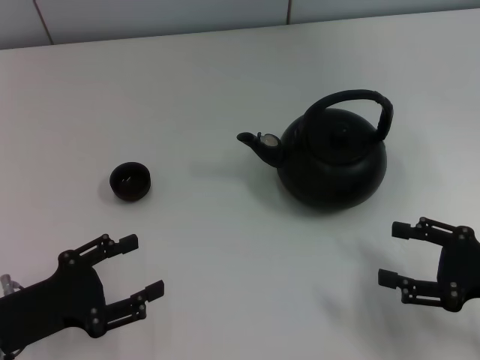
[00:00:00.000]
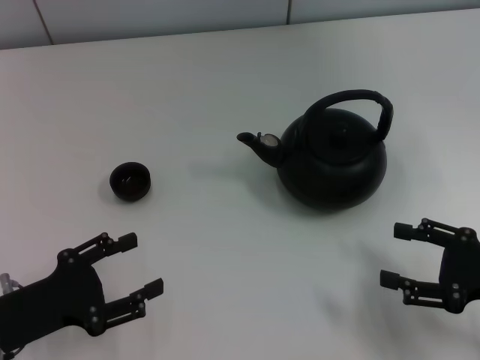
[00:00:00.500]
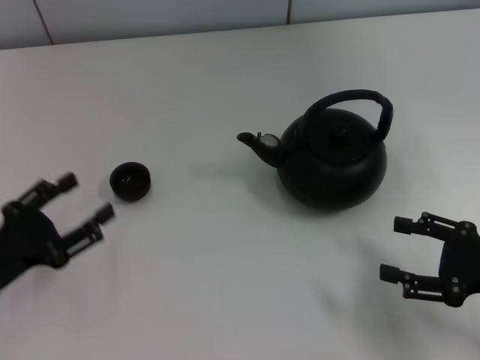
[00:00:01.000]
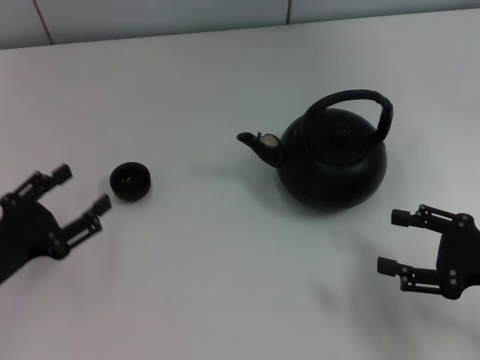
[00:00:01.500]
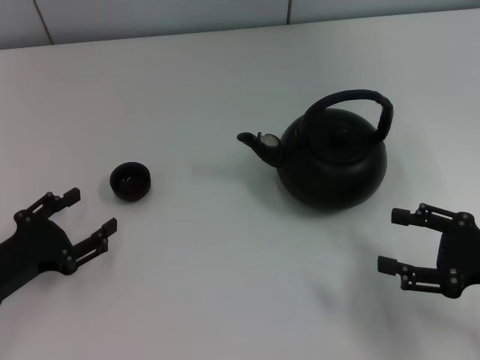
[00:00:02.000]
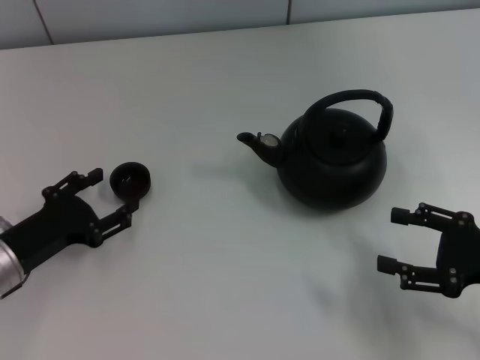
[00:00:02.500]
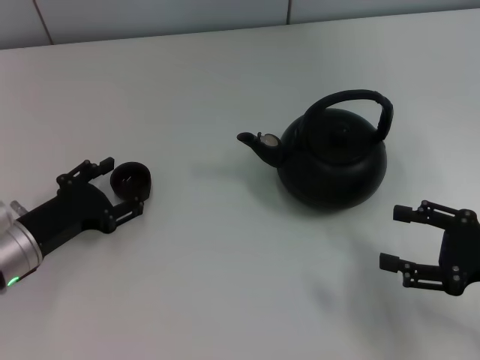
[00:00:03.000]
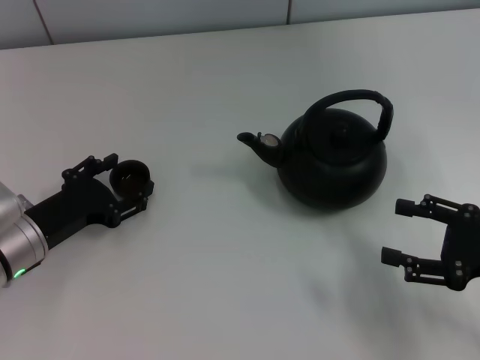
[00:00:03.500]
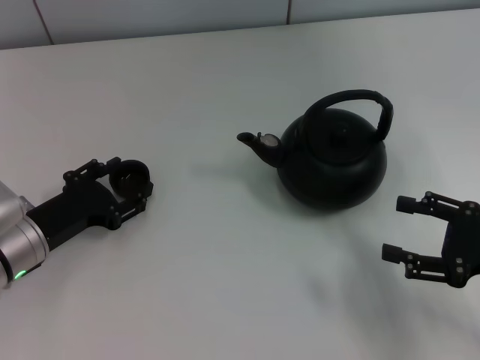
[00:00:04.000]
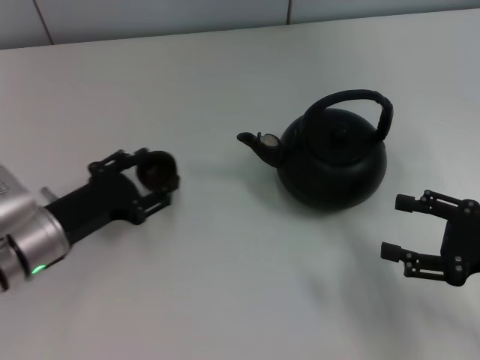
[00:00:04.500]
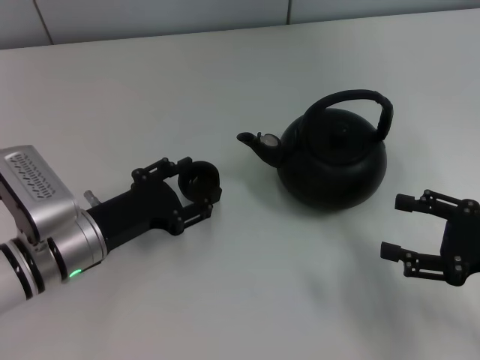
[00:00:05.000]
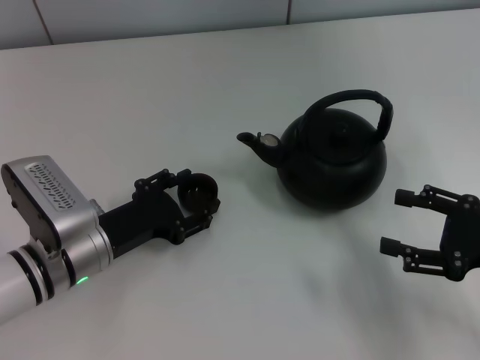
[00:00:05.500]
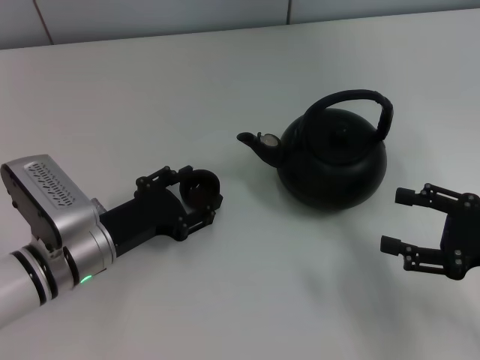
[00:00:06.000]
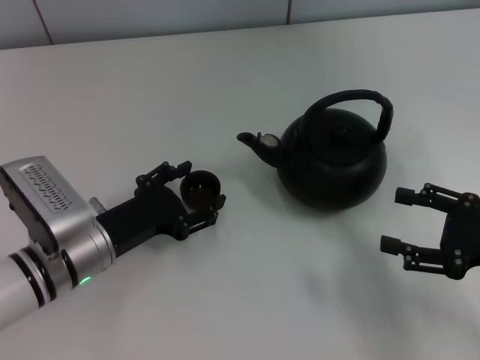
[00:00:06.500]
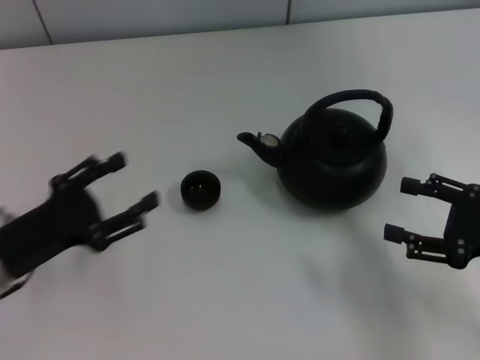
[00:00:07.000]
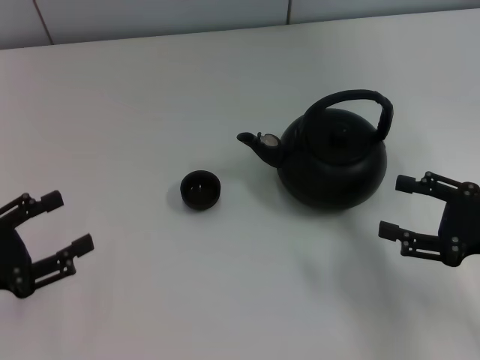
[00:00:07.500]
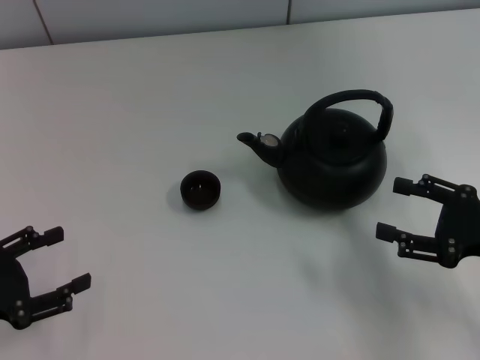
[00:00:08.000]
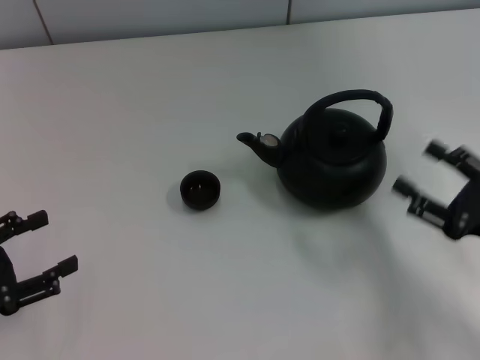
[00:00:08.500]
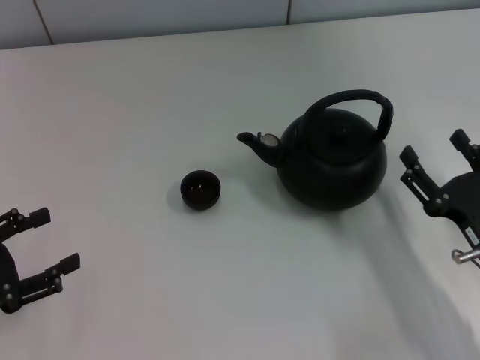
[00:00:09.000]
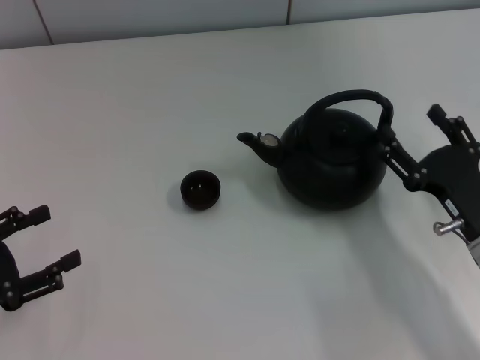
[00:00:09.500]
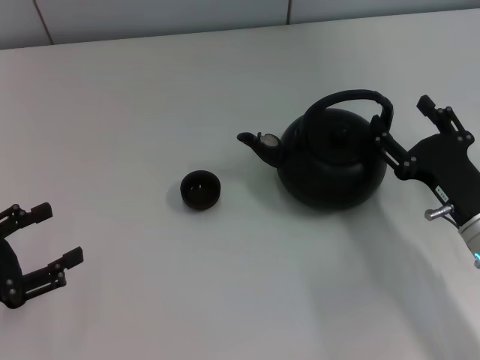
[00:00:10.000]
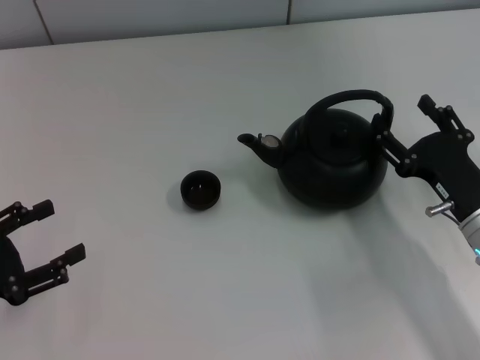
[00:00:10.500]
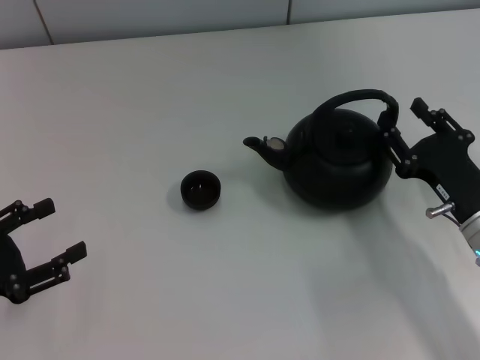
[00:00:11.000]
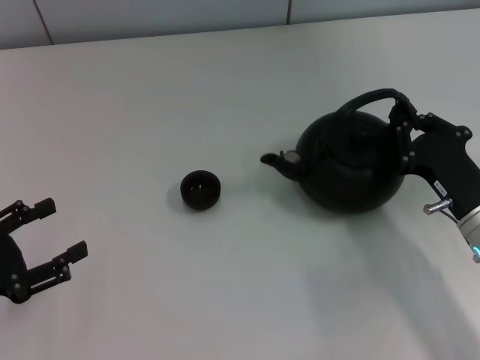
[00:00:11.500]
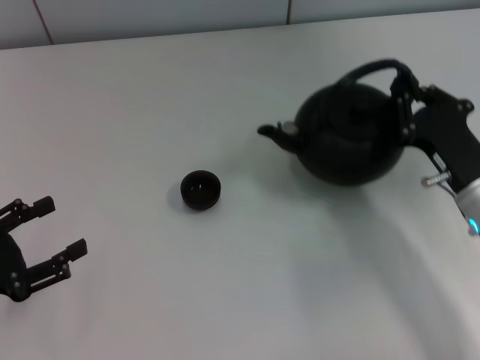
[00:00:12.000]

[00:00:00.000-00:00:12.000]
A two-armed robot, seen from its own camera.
Task of the whole recording: Grasp the handle of the teapot with one hand and pour tea into the teacup.
Step, 00:00:00.000 to 00:00:04.000: Pick up the teacup with the left gripper.
Step, 00:00:04.500 to 00:00:06.500: Place the teacup in the center of view with the left gripper.
00:00:02.000 to 00:00:04.000: The left gripper shifts roughly 5 cm forward.
00:00:04.000 to 00:00:06.000: The left gripper is displaced to the right by approximately 5 cm, and closes its fingers.
00:00:06.000 to 00:00:08.000: The left gripper moves to the left and backward, some 15 cm, and opens up.
00:00:08.000 to 00:00:10.000: The right gripper heads to the left, covering roughly 5 cm.
00:00:10.000 to 00:00:12.000: The right gripper closes.

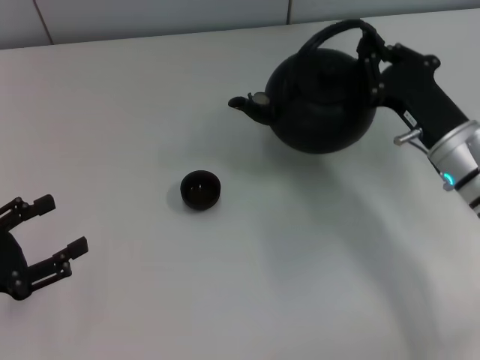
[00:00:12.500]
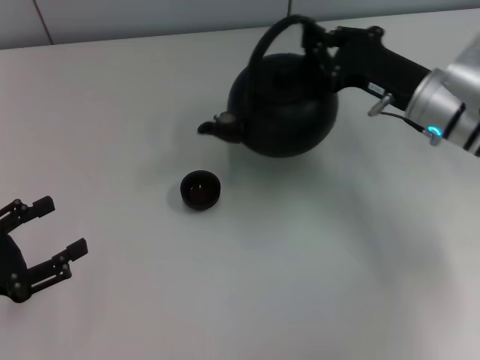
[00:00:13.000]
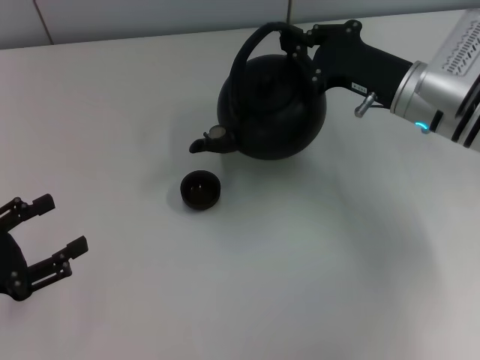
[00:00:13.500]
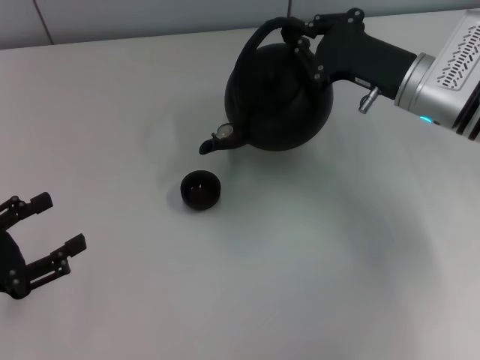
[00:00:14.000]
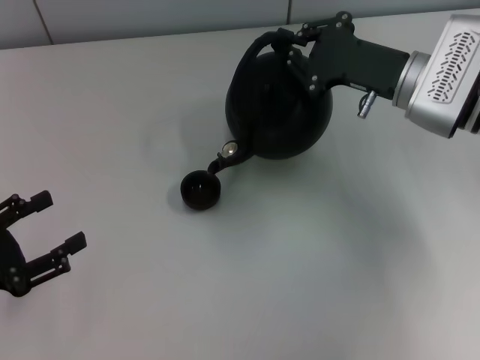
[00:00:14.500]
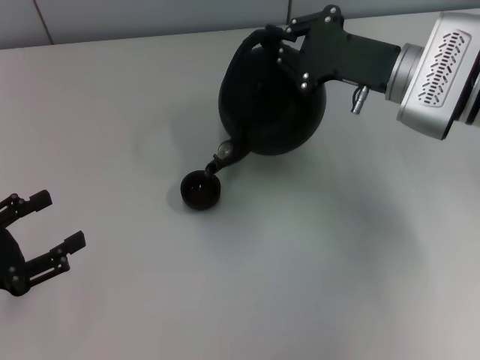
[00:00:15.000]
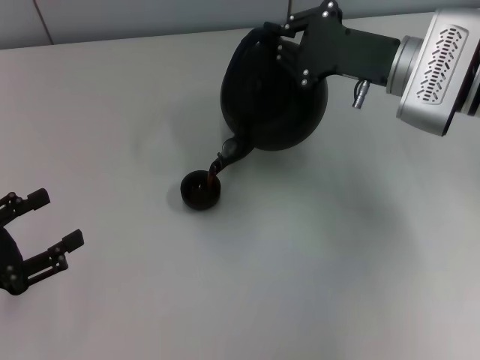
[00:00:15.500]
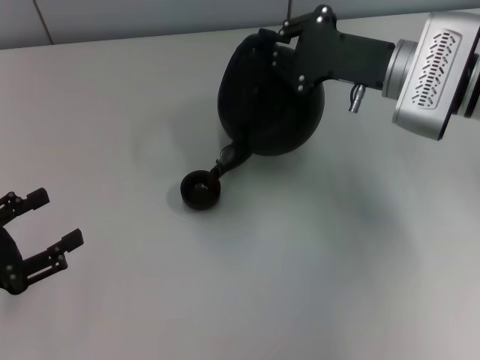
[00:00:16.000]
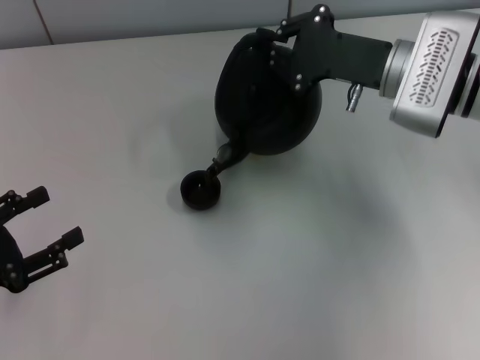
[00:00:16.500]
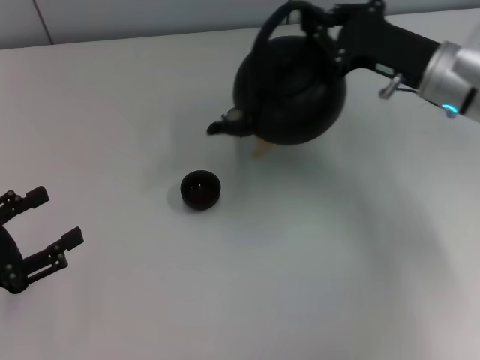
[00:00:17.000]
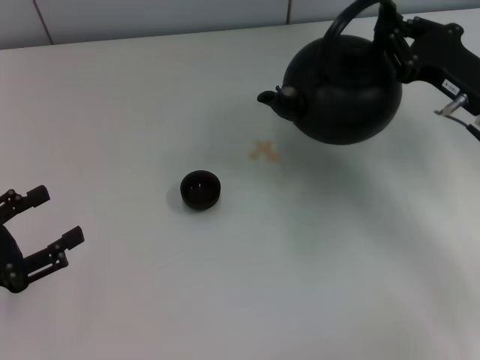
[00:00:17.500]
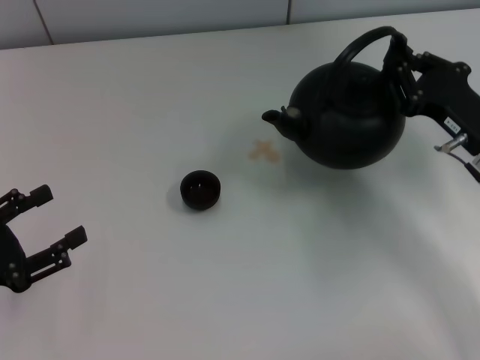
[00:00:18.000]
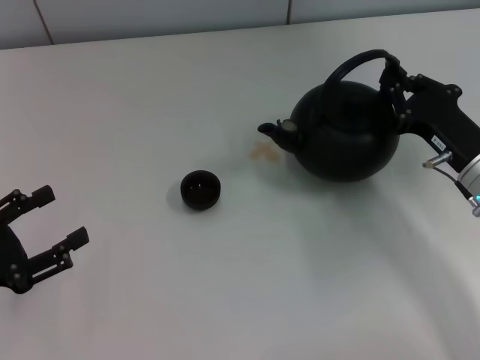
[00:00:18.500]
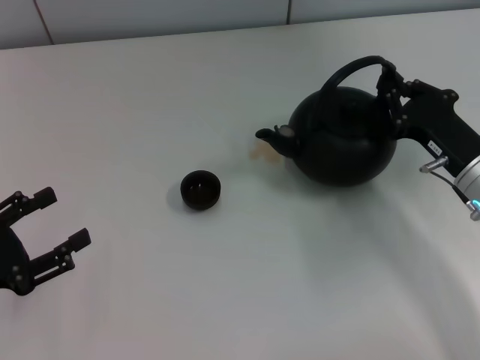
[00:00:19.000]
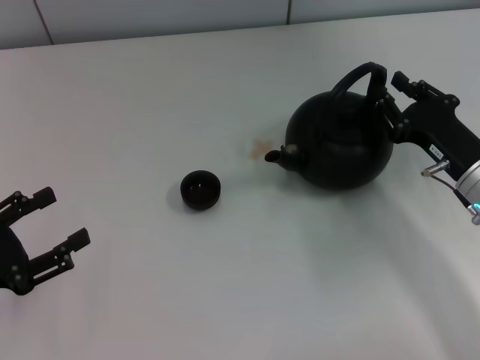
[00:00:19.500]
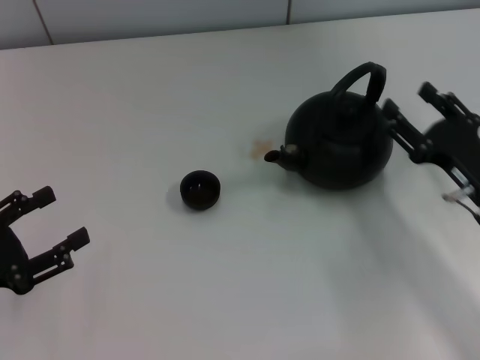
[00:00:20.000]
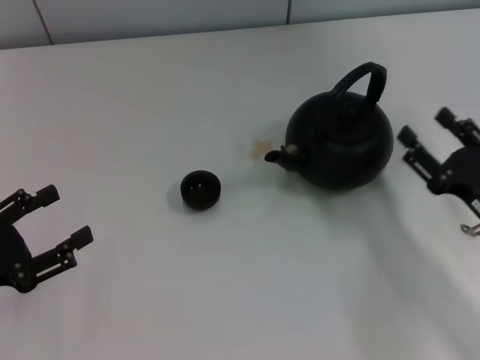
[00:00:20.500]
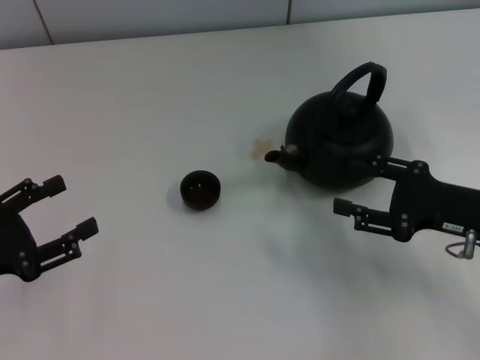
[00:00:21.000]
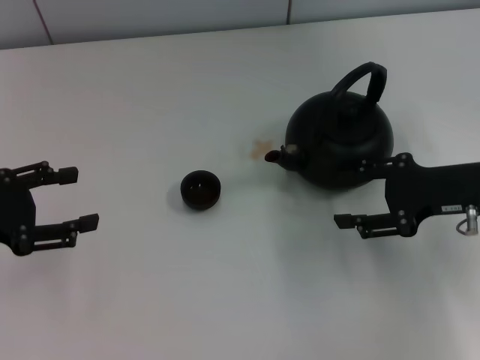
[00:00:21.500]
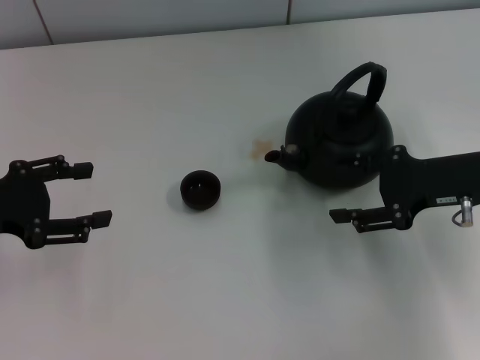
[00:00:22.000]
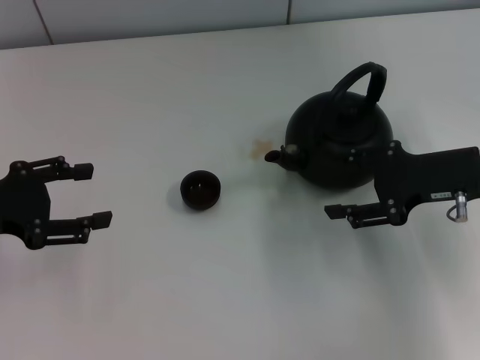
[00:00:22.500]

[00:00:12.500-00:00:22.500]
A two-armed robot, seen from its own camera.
Task of the whole recording: Grasp the handle of the teapot with one hand and pour tea into the teacup.
Step, 00:00:17.000 to 00:00:20.000: Put down the teapot with the right gripper.
00:00:12.500 to 00:00:14.500: The right gripper goes about 10 cm forward and upward.
00:00:14.500 to 00:00:16.500: The grippers make only small movements.
00:00:16.500 to 00:00:18.500: The right gripper heads backward, downward and to the right, covering approximately 15 cm.
00:00:18.500 to 00:00:20.500: The right gripper moves backward, approximately 5 cm, and opens.
00:00:20.500 to 00:00:22.500: The two grippers go approximately 10 cm forward and upward.
